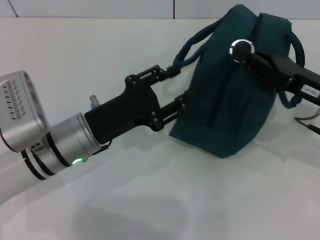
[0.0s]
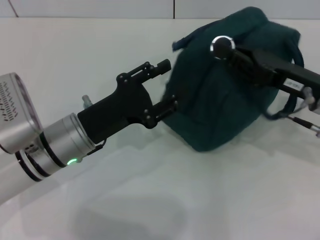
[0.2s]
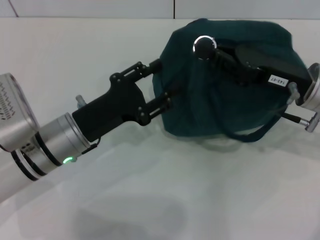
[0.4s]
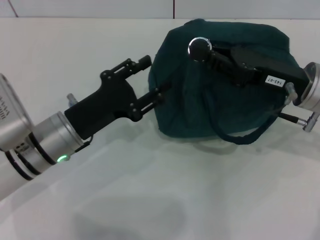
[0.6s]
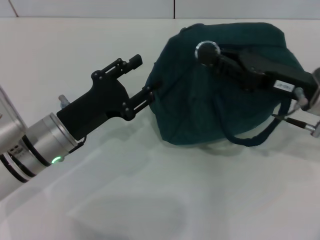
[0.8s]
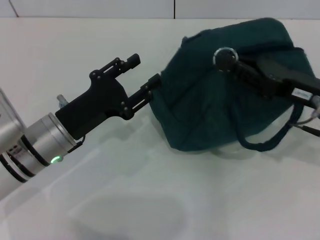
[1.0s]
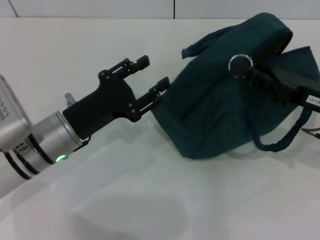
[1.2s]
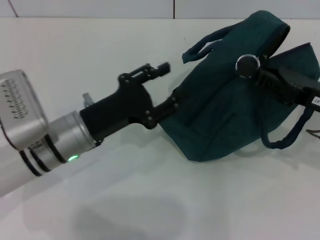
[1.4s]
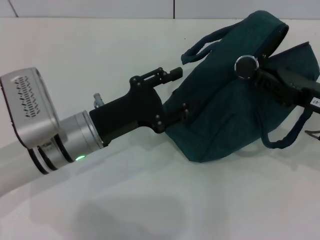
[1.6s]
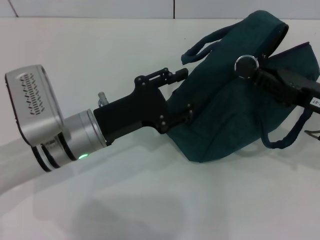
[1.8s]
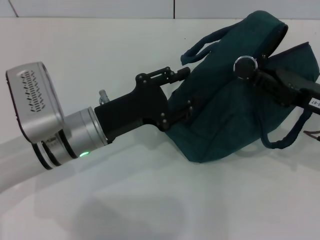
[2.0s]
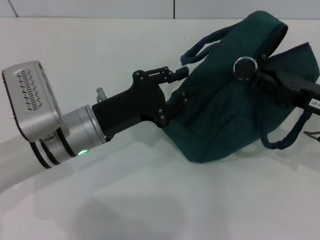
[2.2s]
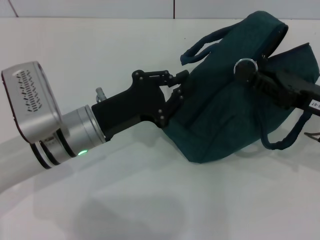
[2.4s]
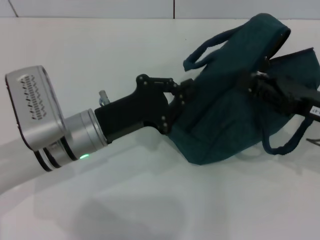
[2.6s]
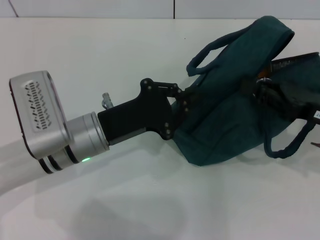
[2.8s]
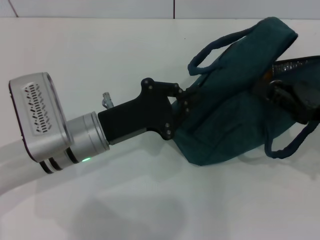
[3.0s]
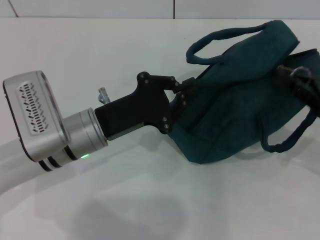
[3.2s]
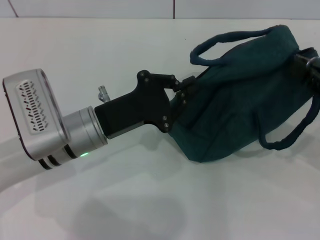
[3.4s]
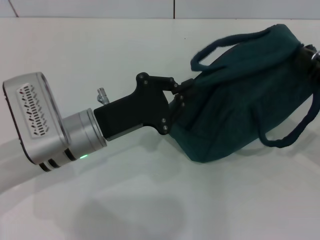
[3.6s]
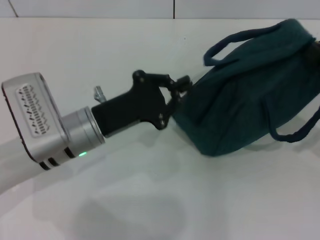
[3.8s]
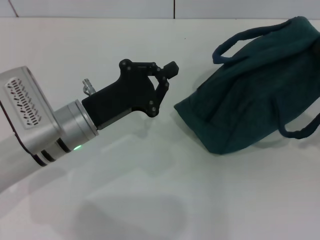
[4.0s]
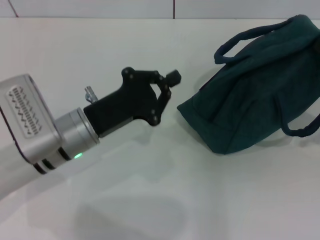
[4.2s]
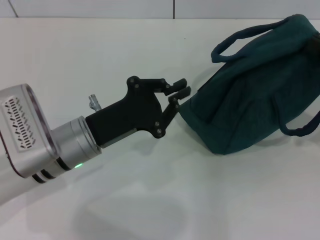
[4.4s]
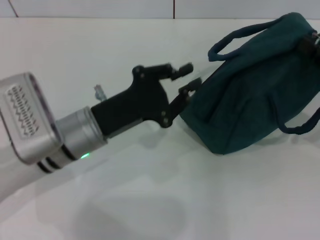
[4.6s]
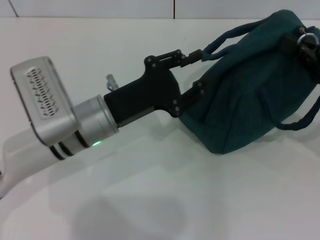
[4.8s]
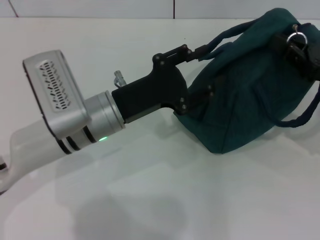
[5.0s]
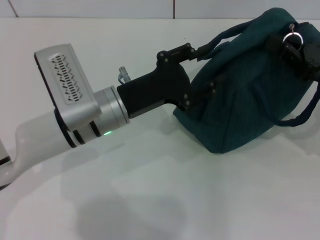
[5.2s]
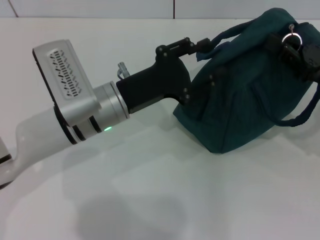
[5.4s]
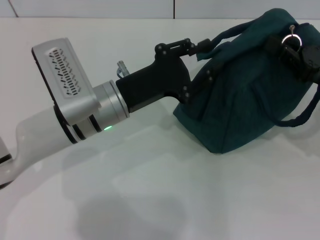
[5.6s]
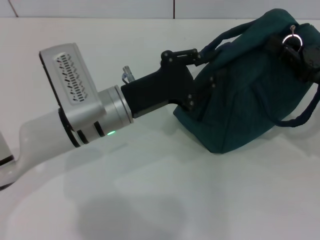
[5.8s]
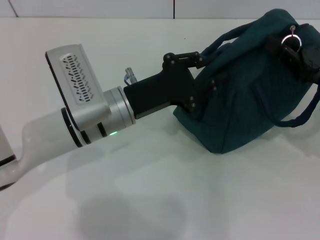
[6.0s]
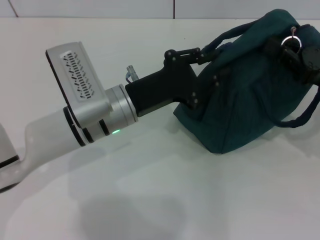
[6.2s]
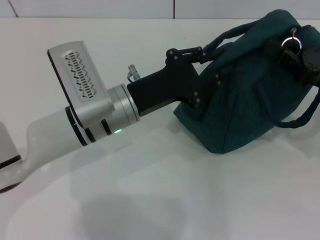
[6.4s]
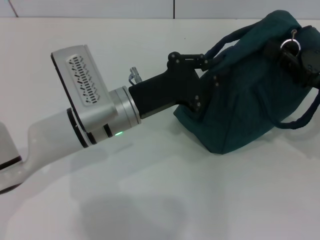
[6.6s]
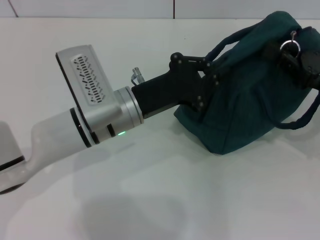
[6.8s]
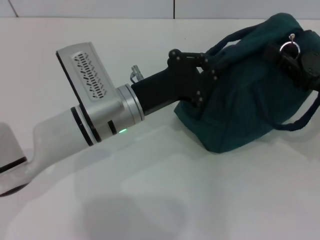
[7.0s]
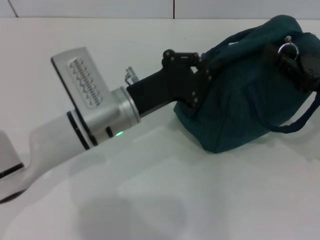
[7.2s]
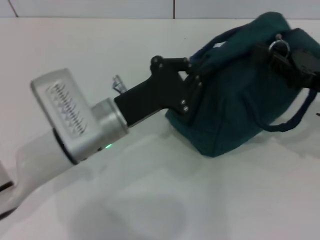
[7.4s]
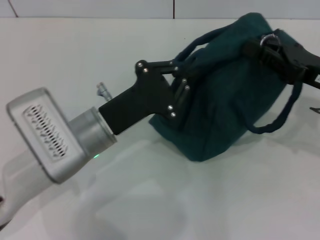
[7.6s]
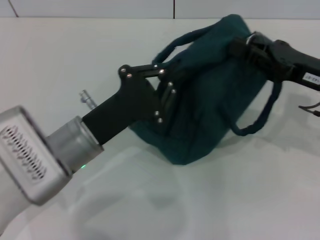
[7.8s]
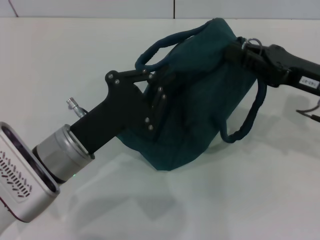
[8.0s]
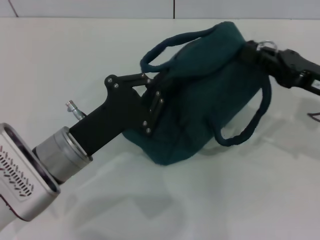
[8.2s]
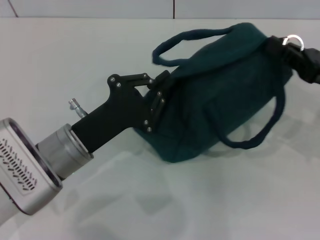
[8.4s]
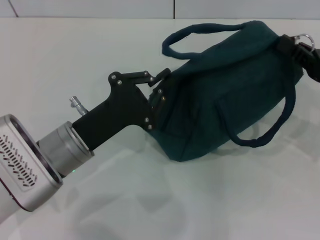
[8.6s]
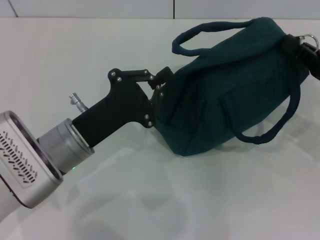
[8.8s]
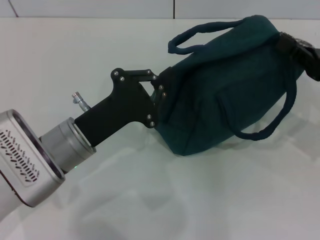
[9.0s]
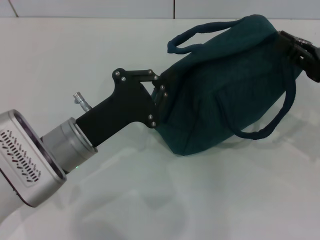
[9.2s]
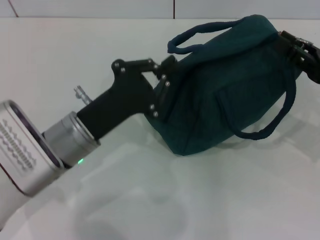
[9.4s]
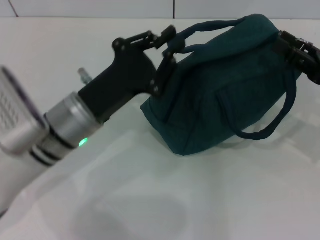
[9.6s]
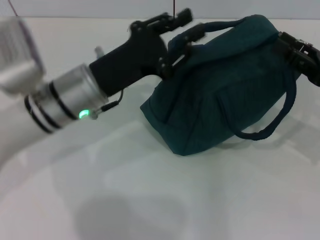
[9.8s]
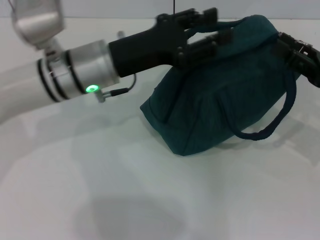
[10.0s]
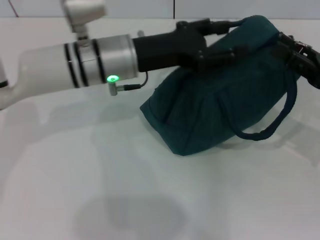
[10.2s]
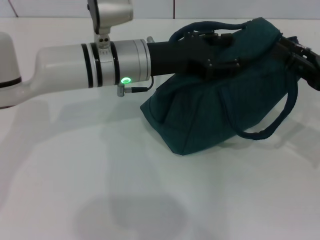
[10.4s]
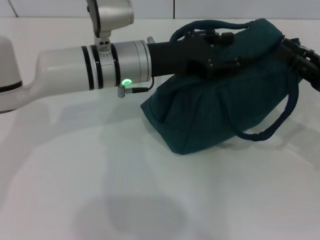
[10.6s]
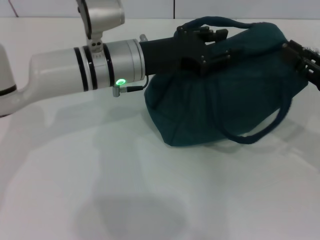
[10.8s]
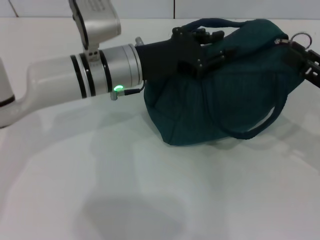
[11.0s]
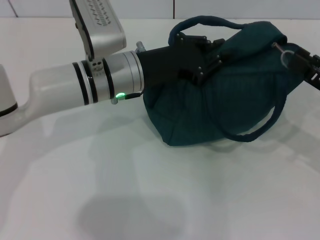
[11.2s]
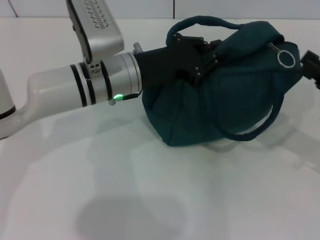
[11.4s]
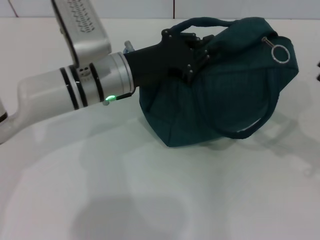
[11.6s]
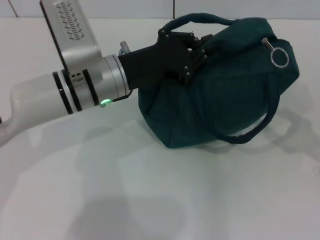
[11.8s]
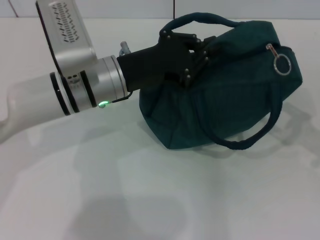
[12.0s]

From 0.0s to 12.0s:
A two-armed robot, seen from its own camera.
From 0.0s to 1.6s: The left gripper opens its fingers.
From 1.6s to 3.0s: The left gripper closes.
From 3.0s to 4.4s: The right gripper is displaced to the right by roughly 5 cm.
From 4.4s to 6.0s: The right gripper changes place by some 5 cm; the left gripper changes place by roughly 5 cm, and opens.
From 6.0s to 7.6s: The left gripper closes up.
From 7.6s to 9.0s: There are only small adjustments of the grippers.
From 9.0s to 10.4s: The left gripper shifts roughly 15 cm forward, to the right and upward, and opens up, while the right gripper opens.
From 10.4s to 12.0s: The right gripper travels to the right by approximately 5 cm. The left gripper closes its fingers.

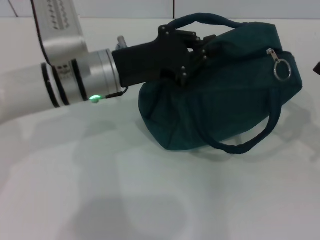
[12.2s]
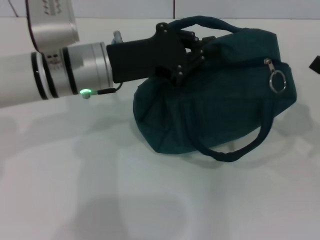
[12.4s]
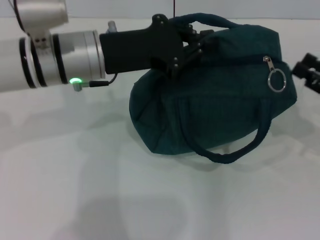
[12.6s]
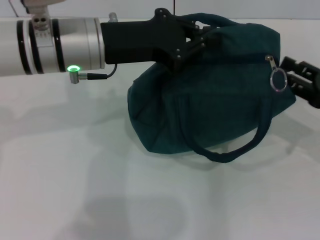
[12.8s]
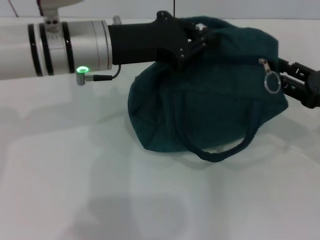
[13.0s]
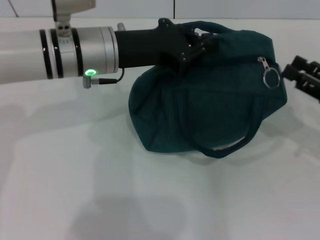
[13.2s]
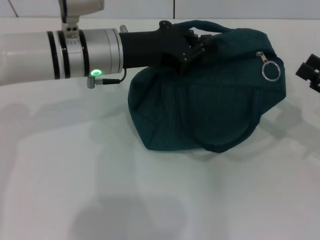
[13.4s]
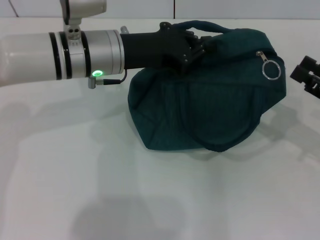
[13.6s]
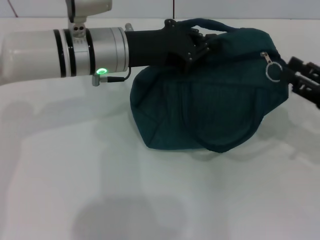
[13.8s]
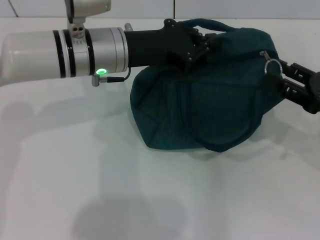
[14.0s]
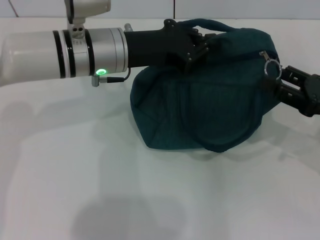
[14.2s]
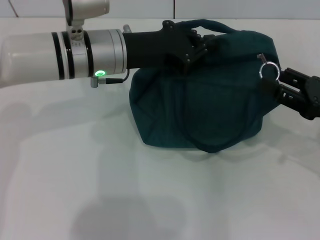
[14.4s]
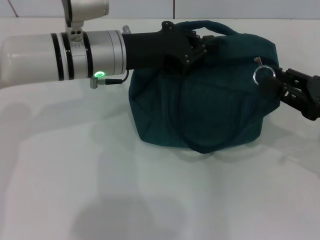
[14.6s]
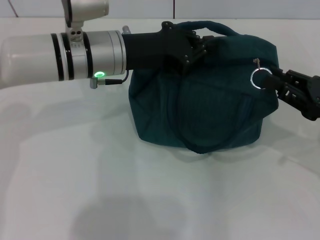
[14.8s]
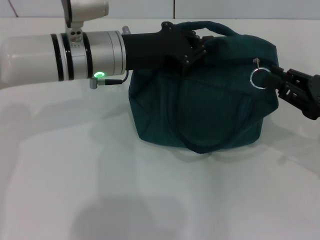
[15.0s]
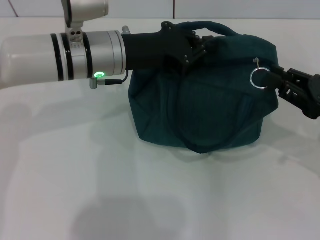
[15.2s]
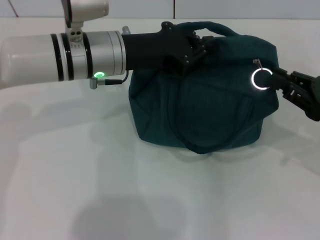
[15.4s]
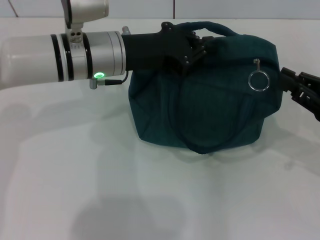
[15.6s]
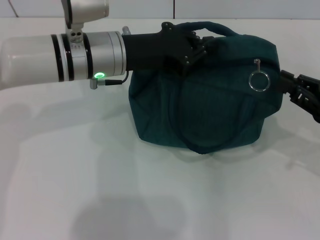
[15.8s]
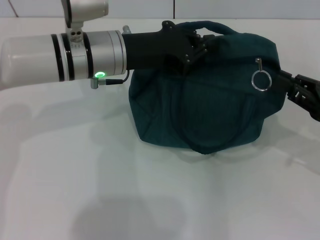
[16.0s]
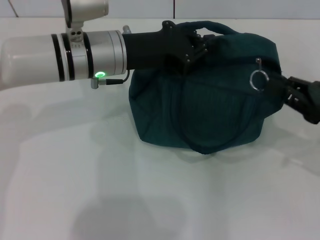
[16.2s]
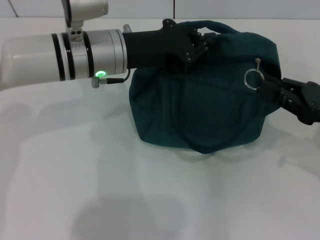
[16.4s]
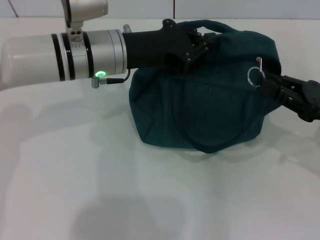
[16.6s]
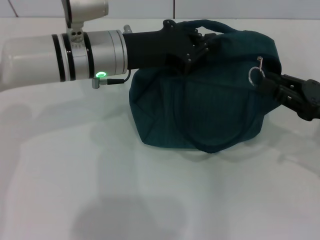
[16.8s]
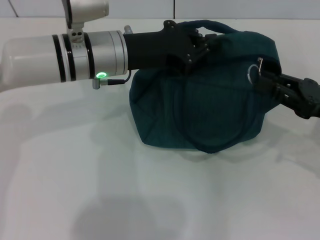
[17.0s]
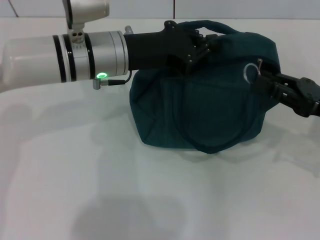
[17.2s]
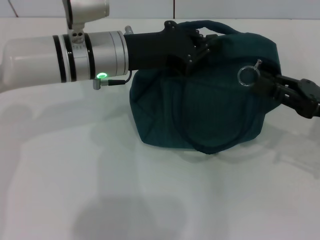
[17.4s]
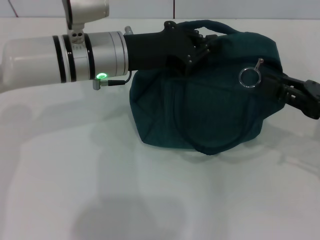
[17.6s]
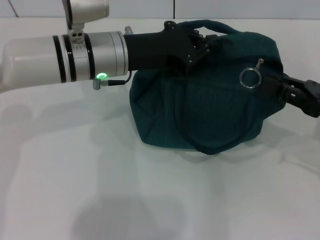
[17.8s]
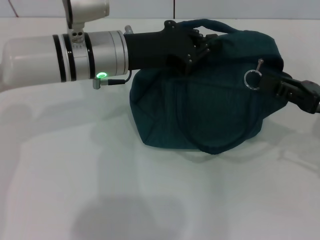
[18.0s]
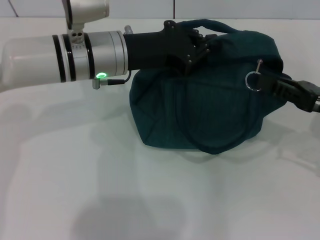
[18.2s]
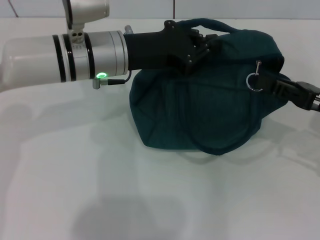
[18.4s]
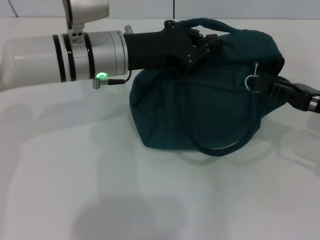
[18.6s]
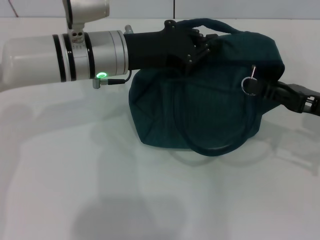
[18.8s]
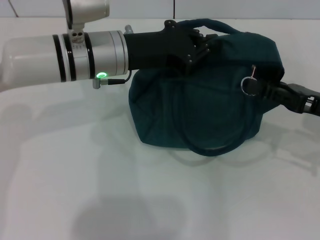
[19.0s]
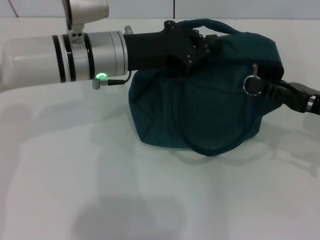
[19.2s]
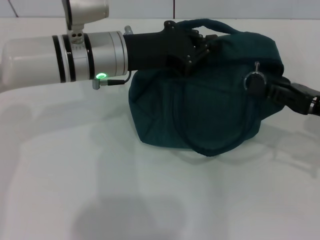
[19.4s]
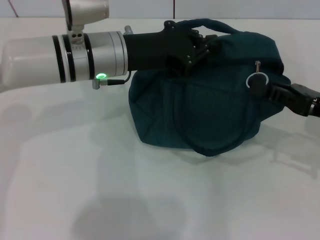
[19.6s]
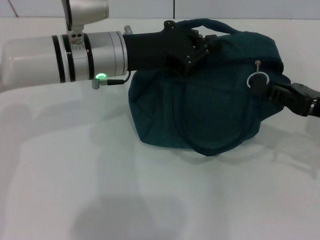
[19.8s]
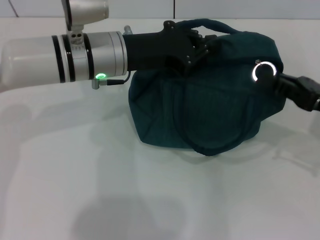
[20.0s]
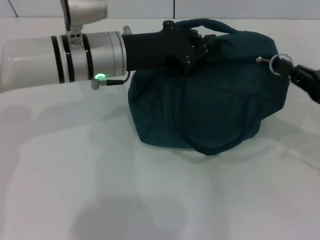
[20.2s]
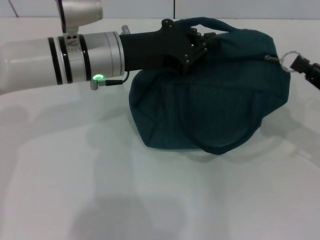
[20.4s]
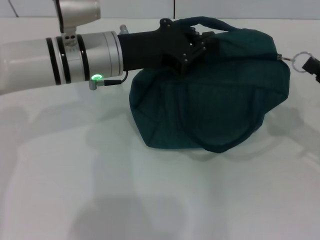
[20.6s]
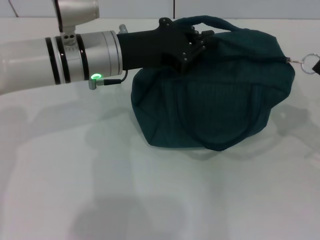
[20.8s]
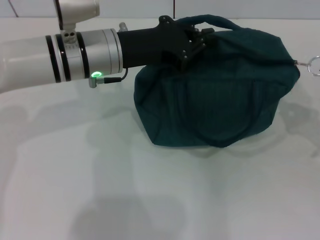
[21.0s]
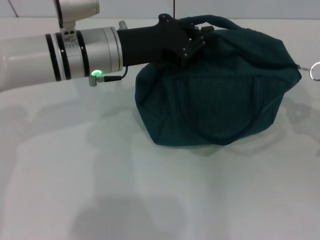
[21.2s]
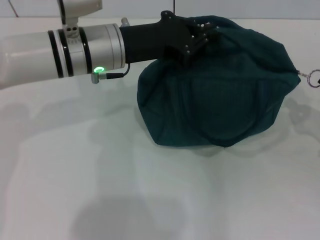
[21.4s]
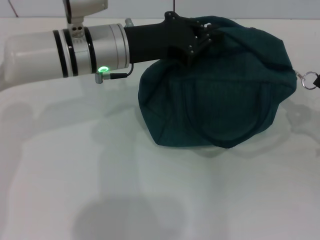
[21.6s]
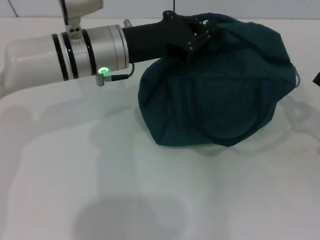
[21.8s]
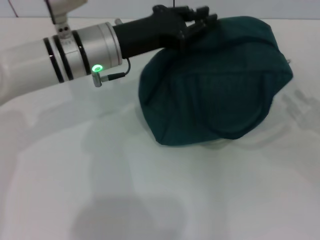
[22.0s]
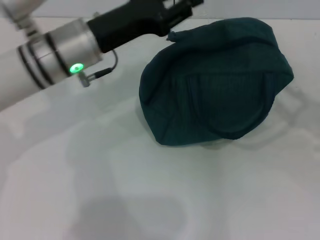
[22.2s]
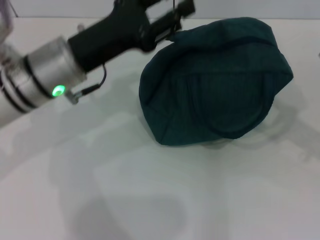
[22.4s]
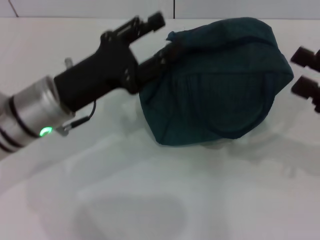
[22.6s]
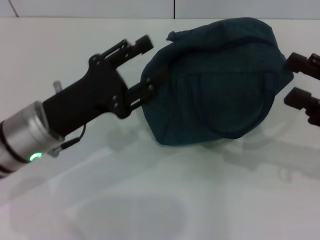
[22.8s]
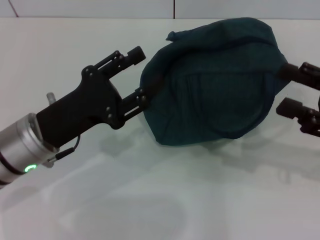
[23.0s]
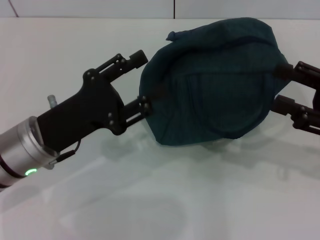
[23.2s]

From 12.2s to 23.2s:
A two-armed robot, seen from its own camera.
Step, from 12.2s to 21.6s: Zip up the lunch bag with your right hand.
Step, from 21.8s to 22.2s: Hold the lunch bag with your left hand.
From 12.2s to 13.8s: The grippers stay close to where they were, moving slightly.
From 13.8s to 15.4s: The right gripper closes its fingers.
From 15.4s to 20.0s: The grippers move only a little.
From 20.0s to 21.6s: The right gripper travels to the right by roughly 5 cm.
From 21.6s to 23.2s: The right gripper goes approximately 10 cm upward and to the left, and opens its fingers, while the left gripper is displaced backward, to the left and downward by about 15 cm, and opens its fingers.
